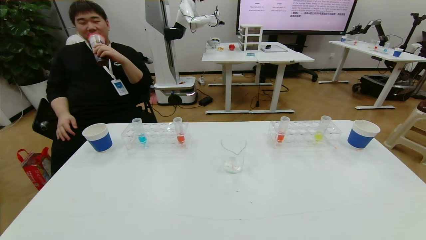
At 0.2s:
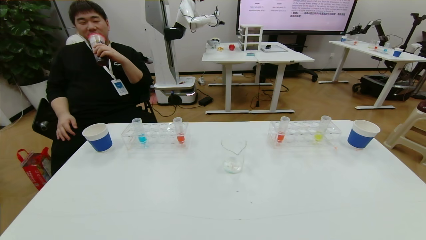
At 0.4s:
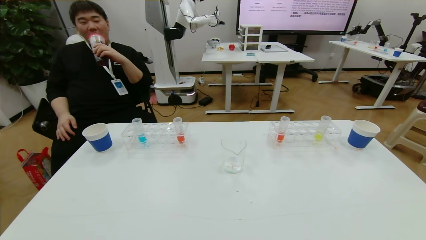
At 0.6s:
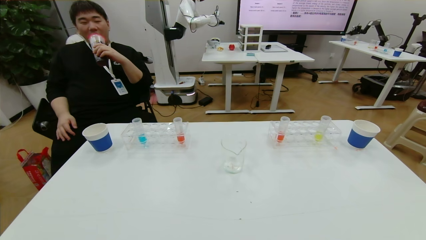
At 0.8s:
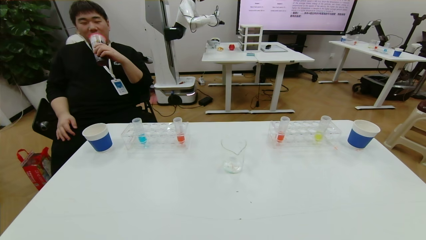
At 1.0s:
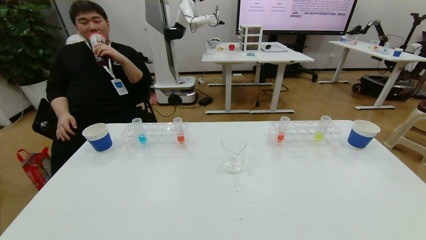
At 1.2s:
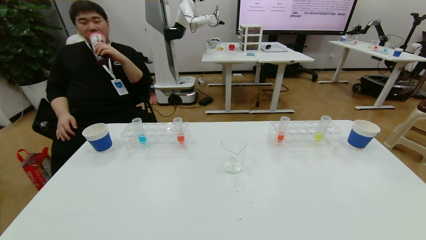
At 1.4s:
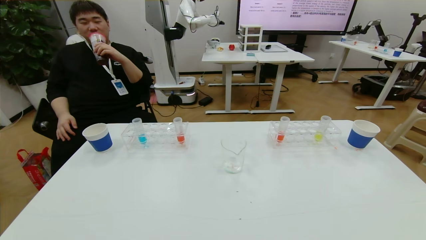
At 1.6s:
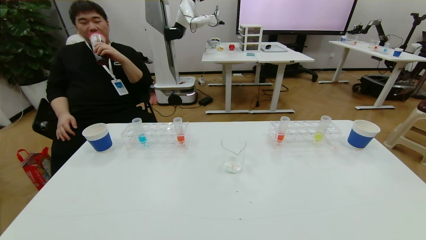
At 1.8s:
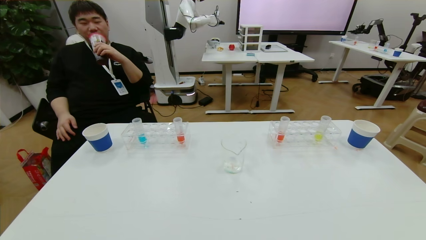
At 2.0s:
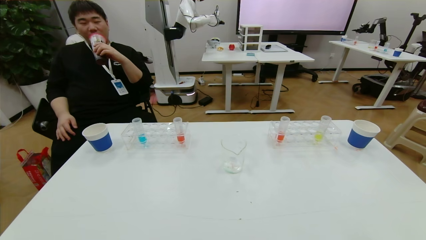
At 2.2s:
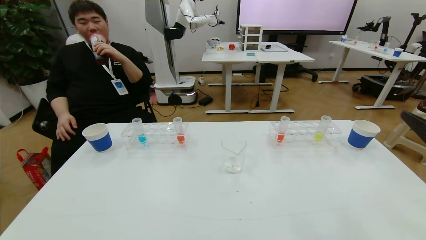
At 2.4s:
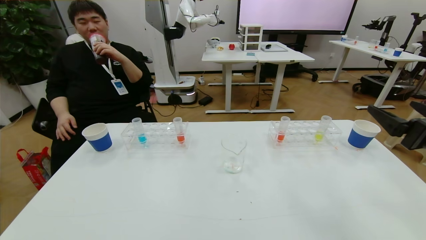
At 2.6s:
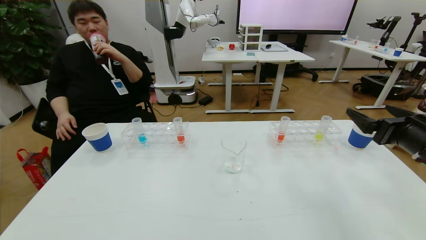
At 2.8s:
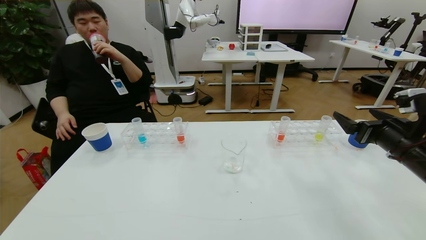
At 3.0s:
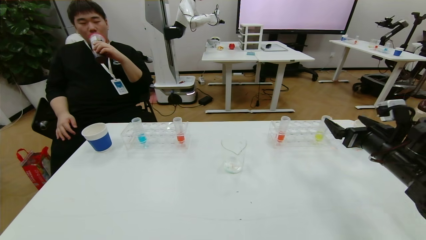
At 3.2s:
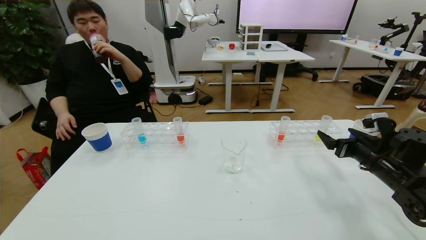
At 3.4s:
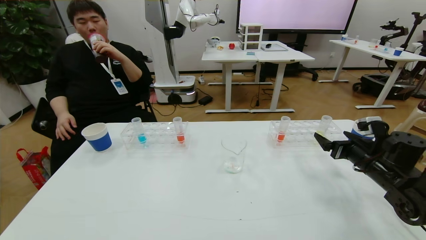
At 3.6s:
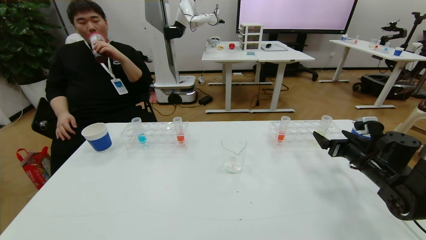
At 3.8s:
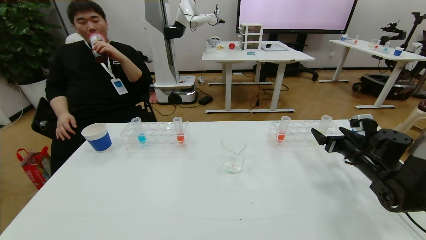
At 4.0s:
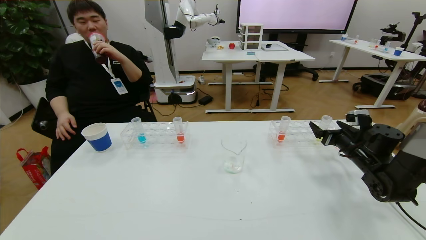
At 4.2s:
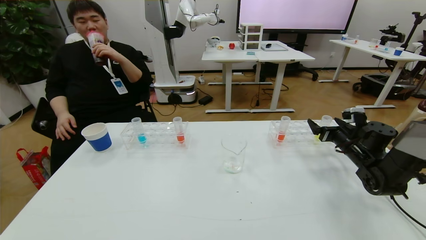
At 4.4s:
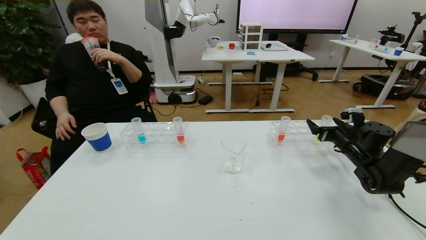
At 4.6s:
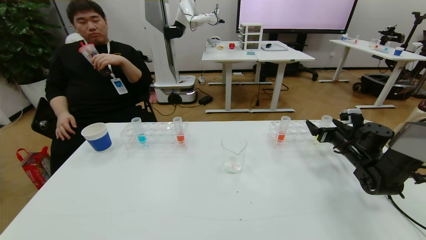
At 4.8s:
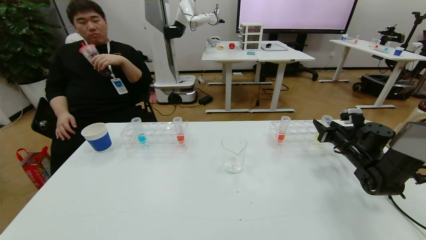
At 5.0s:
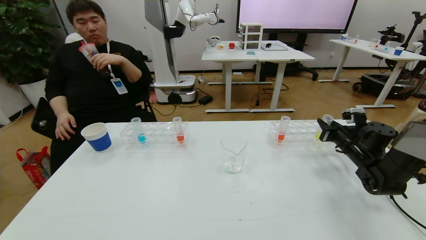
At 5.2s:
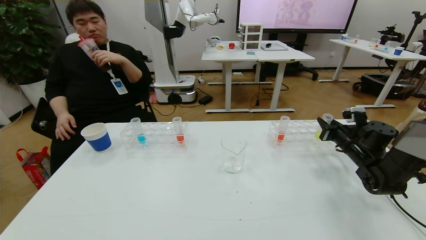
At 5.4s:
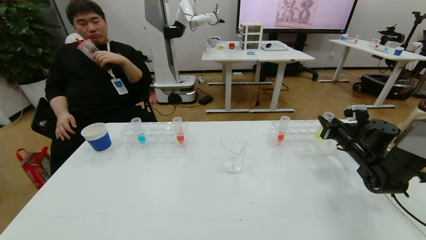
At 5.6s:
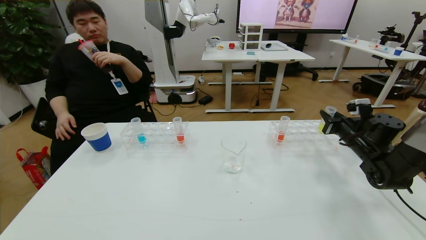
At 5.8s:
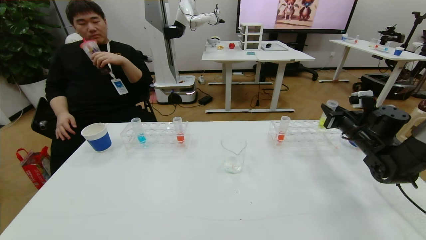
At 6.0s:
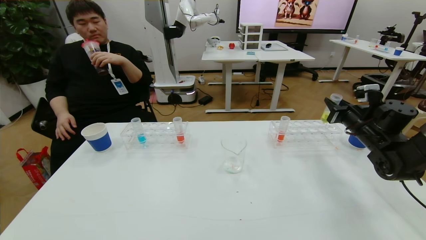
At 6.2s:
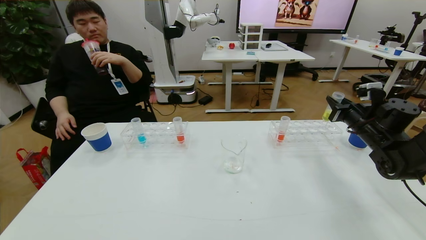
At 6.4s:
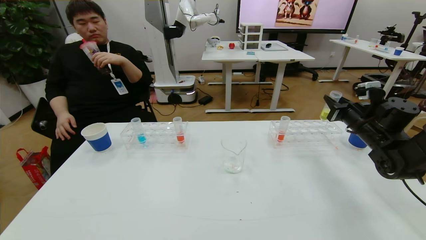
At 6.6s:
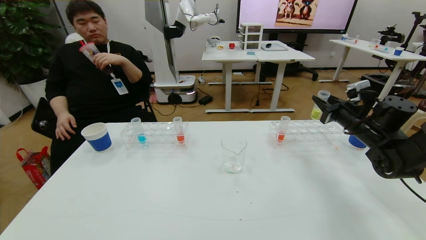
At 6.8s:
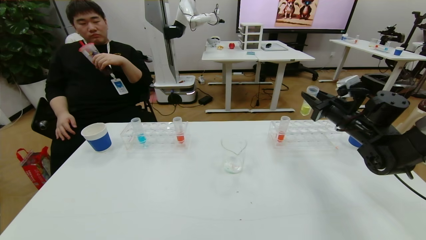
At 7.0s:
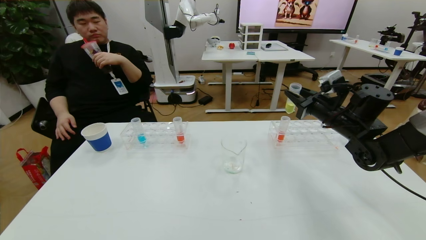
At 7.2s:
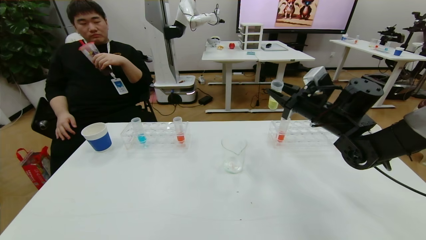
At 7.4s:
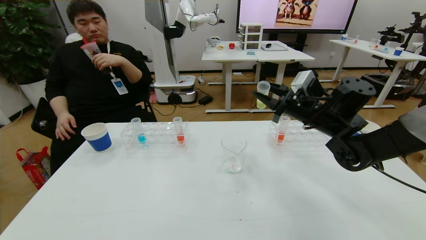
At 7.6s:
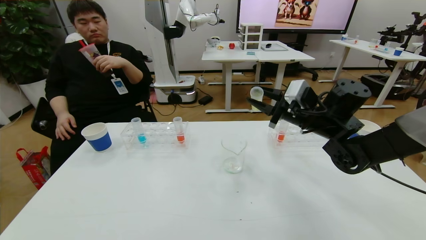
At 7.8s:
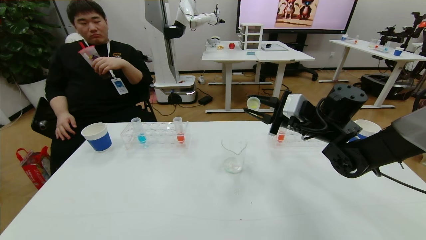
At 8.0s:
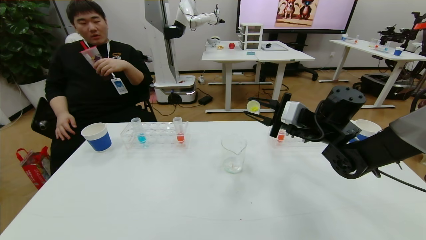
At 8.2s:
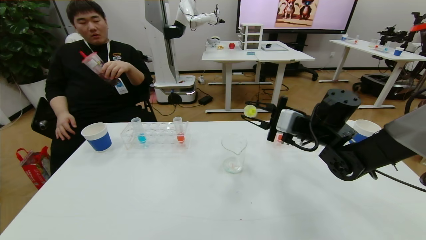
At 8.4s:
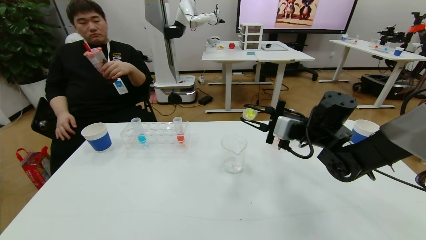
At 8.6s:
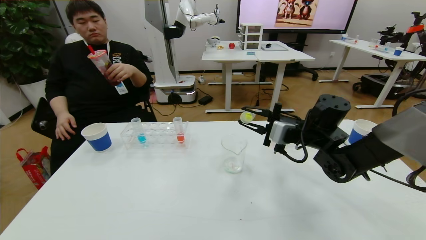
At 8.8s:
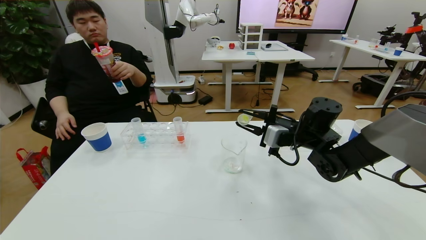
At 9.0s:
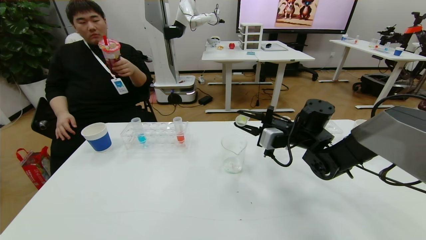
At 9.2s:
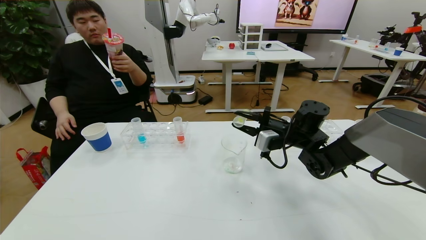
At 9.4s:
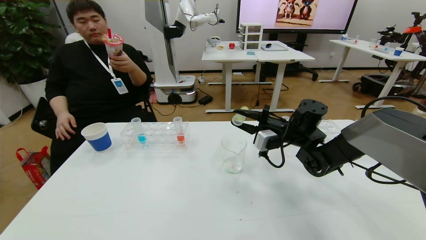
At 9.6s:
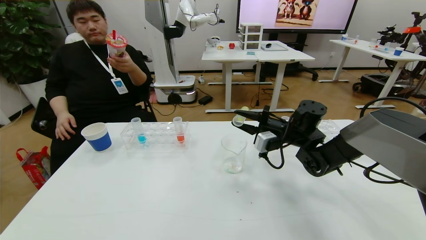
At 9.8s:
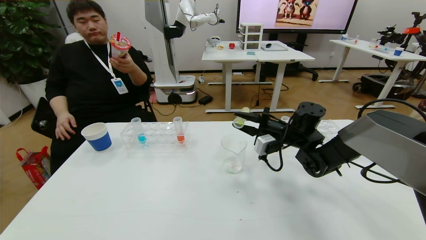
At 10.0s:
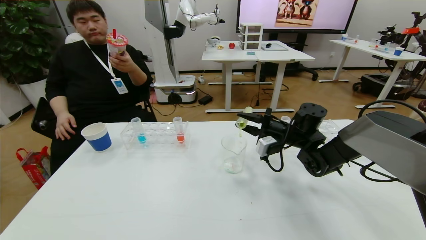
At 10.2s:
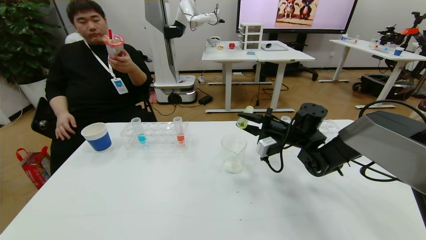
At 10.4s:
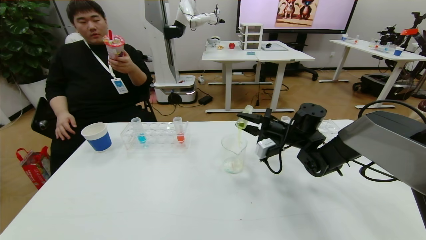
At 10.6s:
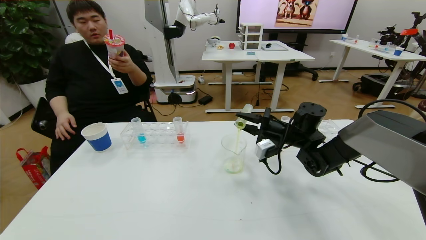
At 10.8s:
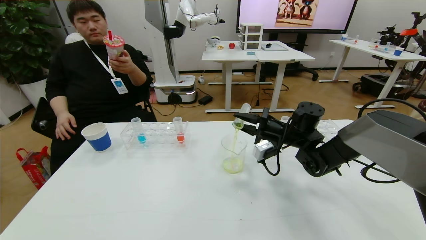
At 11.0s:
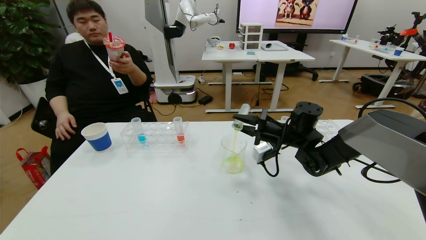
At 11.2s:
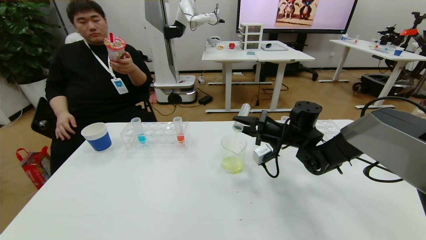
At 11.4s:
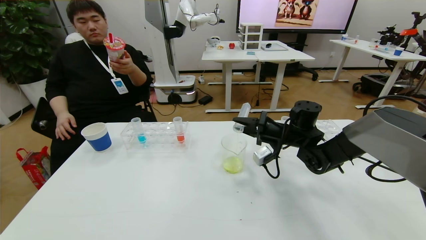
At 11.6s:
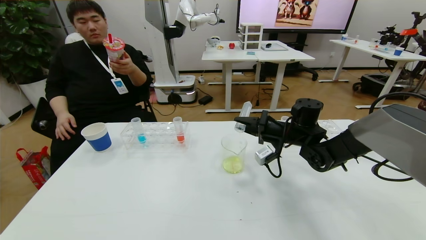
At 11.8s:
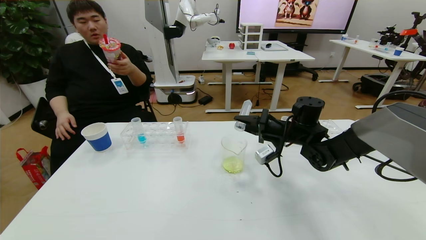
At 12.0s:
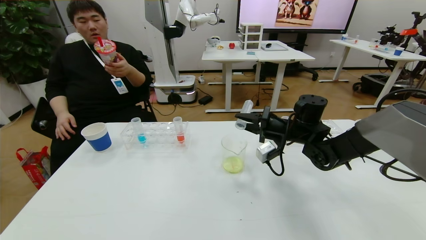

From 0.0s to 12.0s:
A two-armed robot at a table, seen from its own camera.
Task of the whole recording: pick up the test tube with yellow pigment and the test tube with blue pigment by grippers and pour them into the beaker.
Step, from 0.0s to 4.8s: Grasp the yellow reagent with the right gripper.
From 1.6s to 3.0s: The right gripper travels forward by about 30 cm.
From 3.0s to 4.4s: The right gripper heads forward and downward, covering roughly 15 cm.
From 4.4s to 6.0s: The right gripper heads upward, covering about 5 cm, and closes up.
From 6.0s to 7.6s: The right gripper shifts approximately 15 cm to the left.
From 7.6s to 9.0s: The right gripper is displaced downward by roughly 5 cm.
From 10.4s to 12.0s: The grippers make only small movements.

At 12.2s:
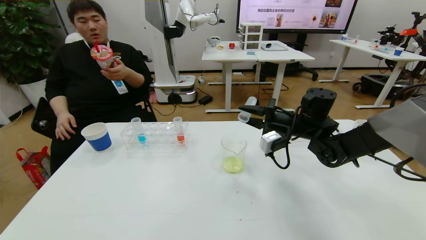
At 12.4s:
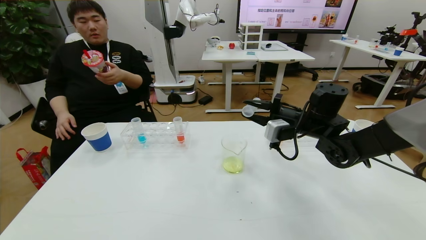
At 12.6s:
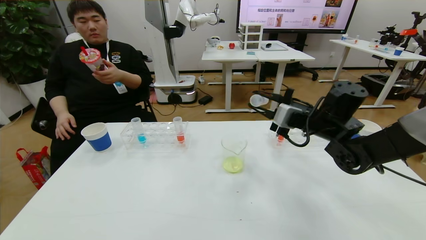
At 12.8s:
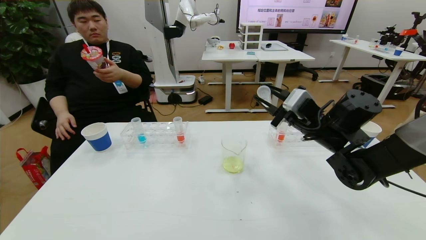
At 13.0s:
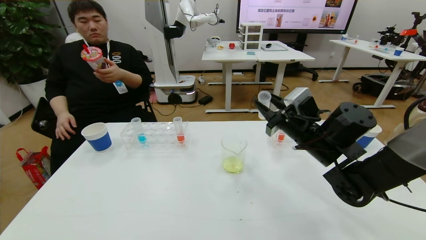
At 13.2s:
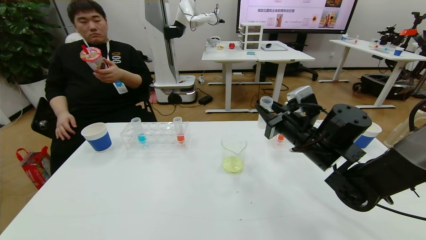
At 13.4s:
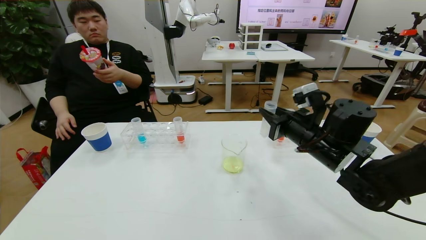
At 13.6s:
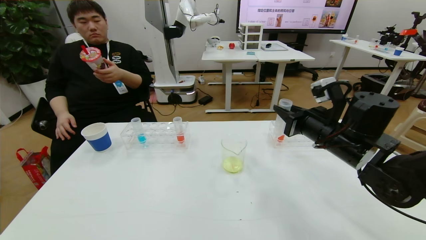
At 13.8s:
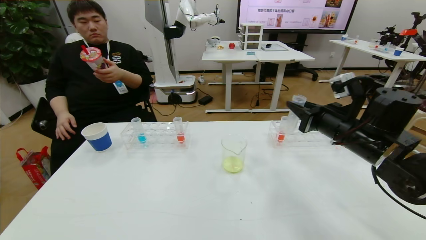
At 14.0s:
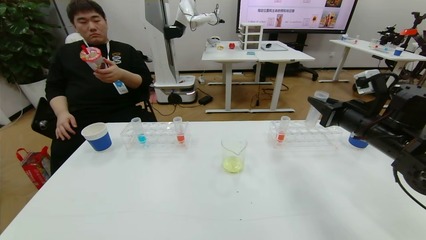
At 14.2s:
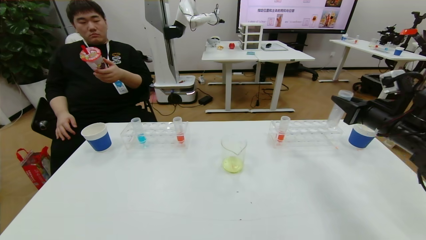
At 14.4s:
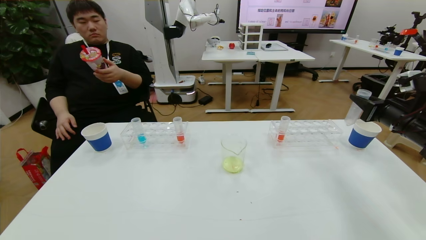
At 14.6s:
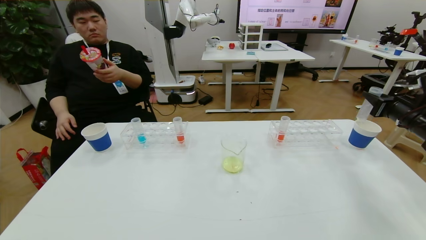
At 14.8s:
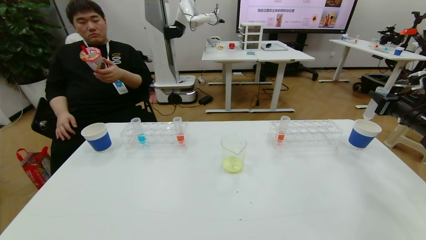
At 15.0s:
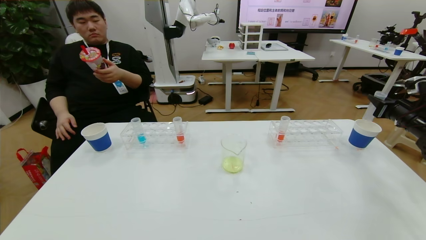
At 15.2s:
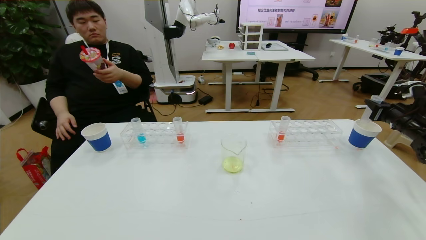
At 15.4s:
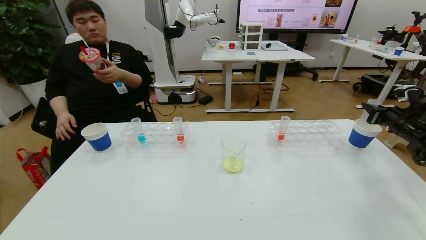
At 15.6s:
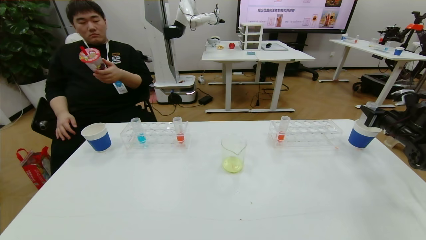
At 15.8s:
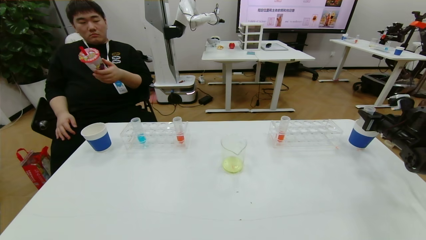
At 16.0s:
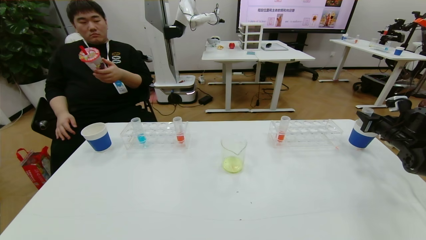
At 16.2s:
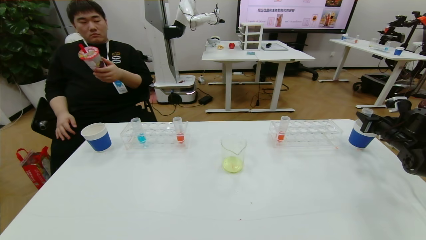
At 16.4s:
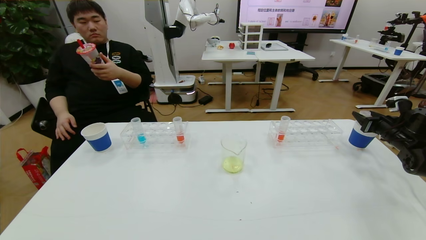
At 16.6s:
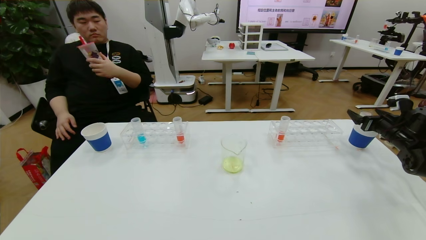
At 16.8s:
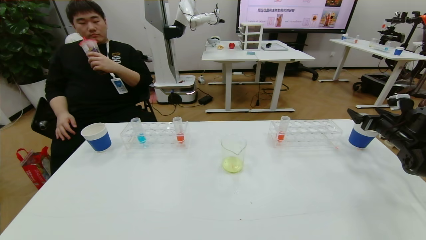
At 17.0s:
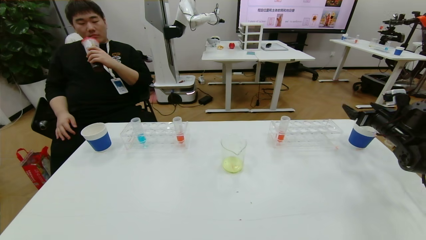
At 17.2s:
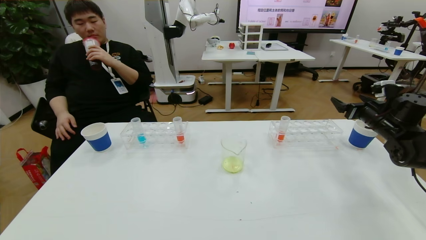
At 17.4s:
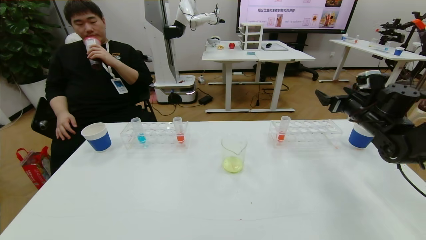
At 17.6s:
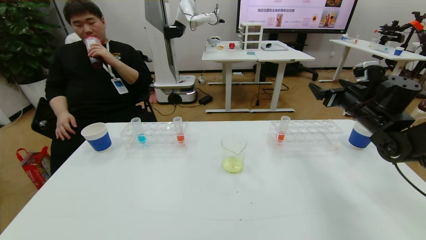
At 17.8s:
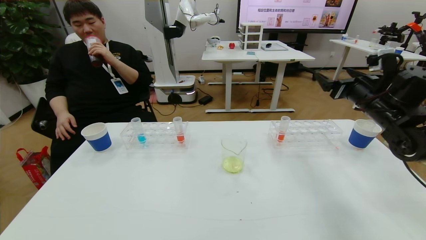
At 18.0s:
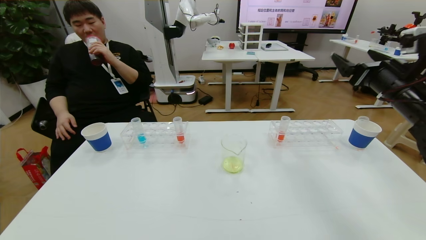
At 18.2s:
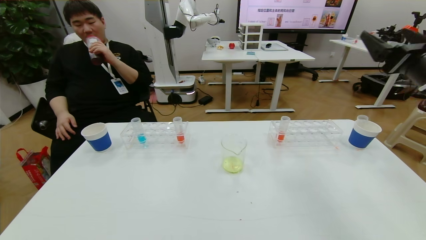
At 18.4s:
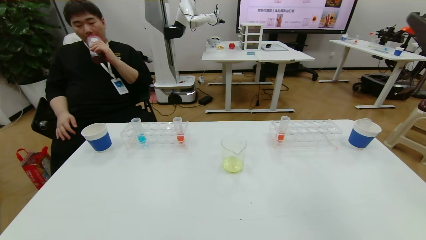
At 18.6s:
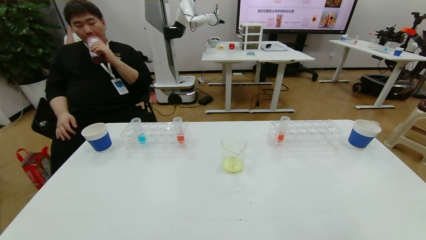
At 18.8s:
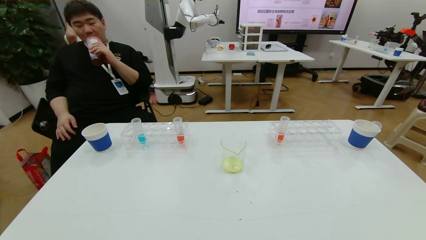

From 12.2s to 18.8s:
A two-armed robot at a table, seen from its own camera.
Task of the whole recording: pick up the test tube with yellow pigment and the test tube with blue pigment by grippers and pour them into the beaker.
Step, from 13.0s to 16.8s: Place the test tube into the paper cup with the right gripper.
From 12.2s to 13.8s: The right gripper moves backward and to the right, approximately 10 cm.
From 13.8s to 15.4s: The right gripper travels to the right by some 25 cm.
From 15.4s to 17.2s: The right gripper shifts some 10 cm to the left, and opens.
From 17.2s to 18.8s: The right gripper is displaced backward and upward by roughly 40 cm.
